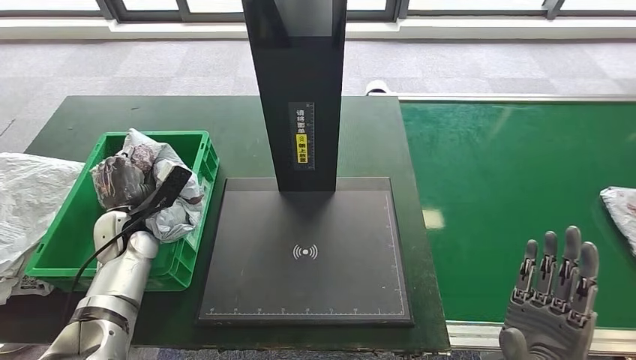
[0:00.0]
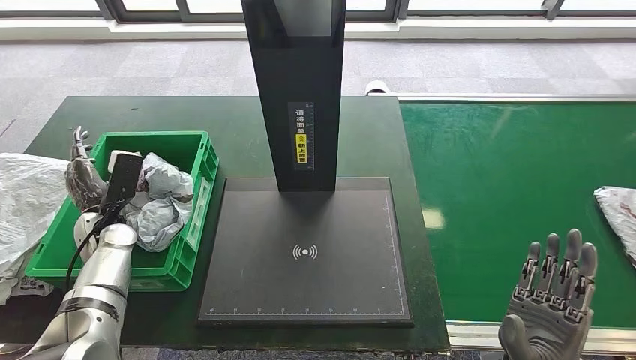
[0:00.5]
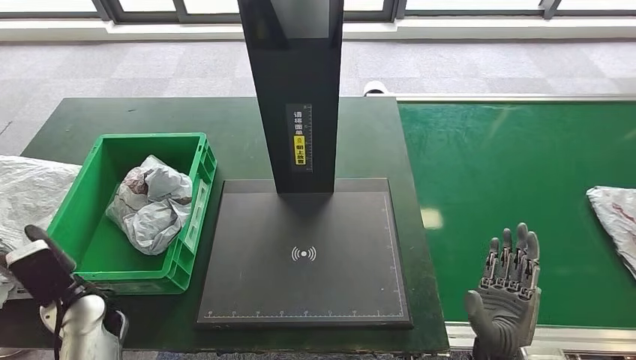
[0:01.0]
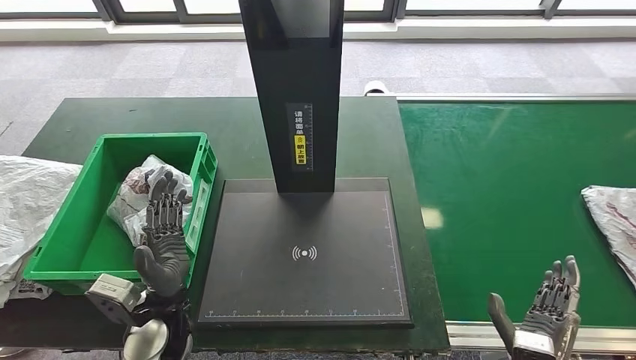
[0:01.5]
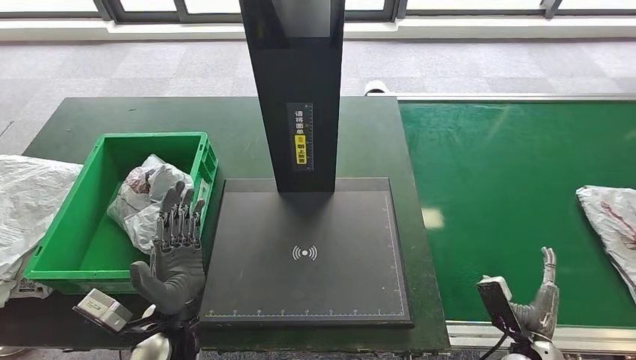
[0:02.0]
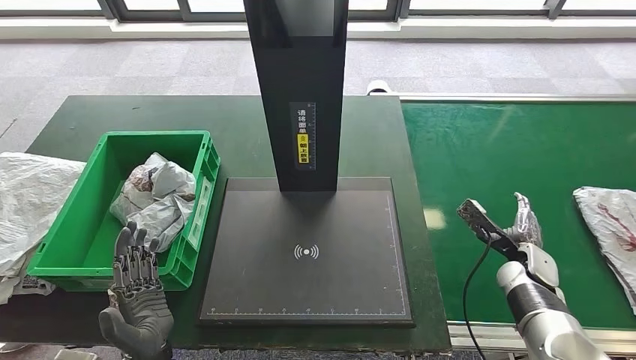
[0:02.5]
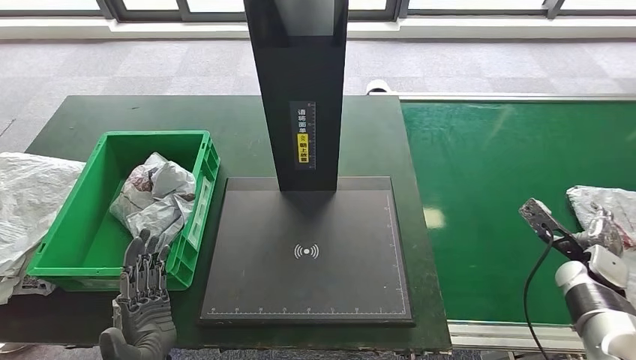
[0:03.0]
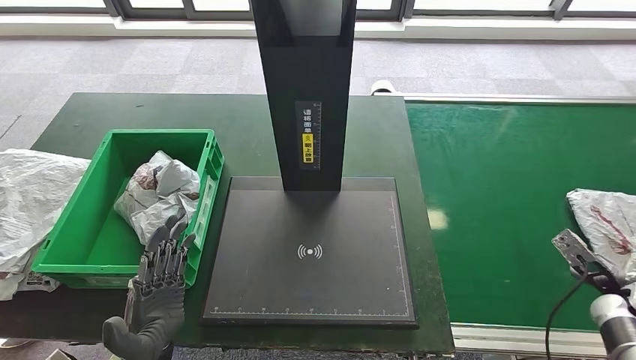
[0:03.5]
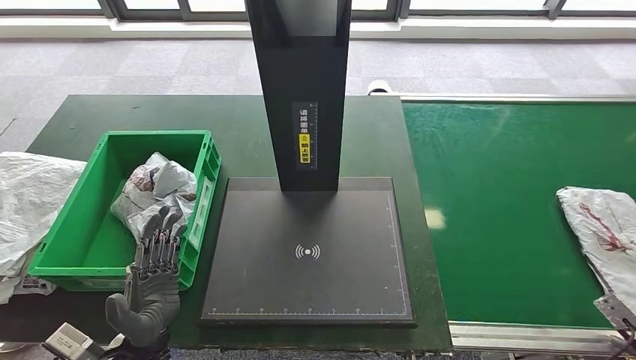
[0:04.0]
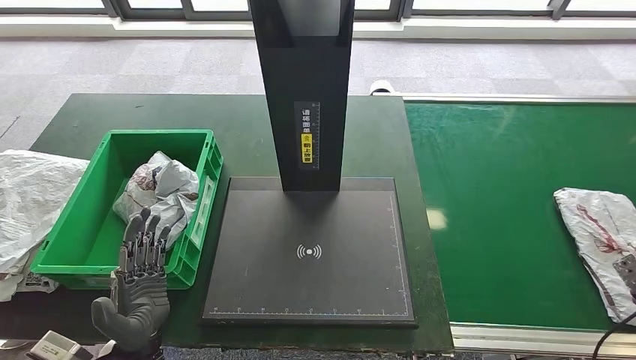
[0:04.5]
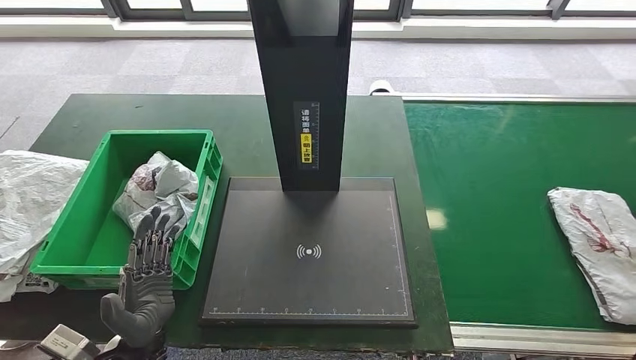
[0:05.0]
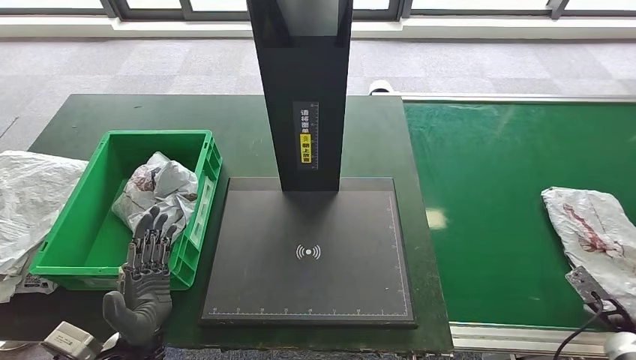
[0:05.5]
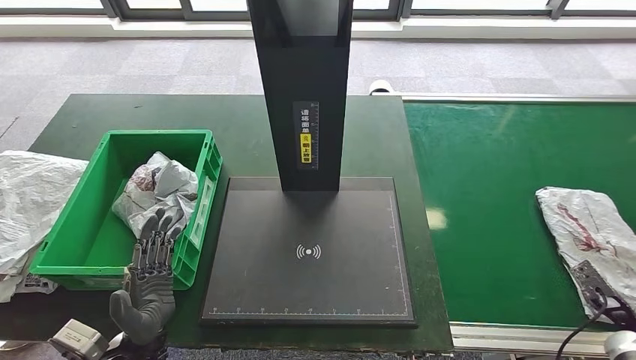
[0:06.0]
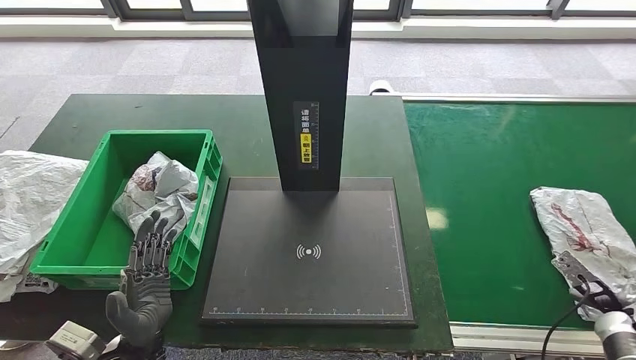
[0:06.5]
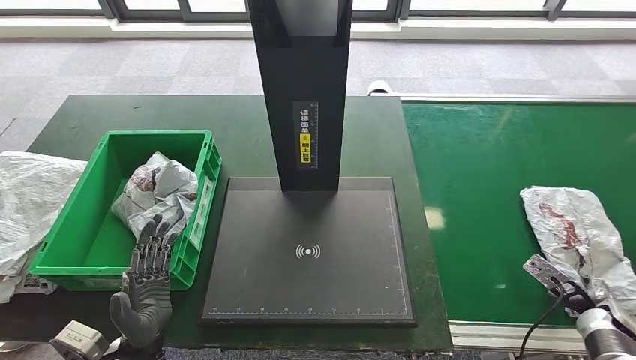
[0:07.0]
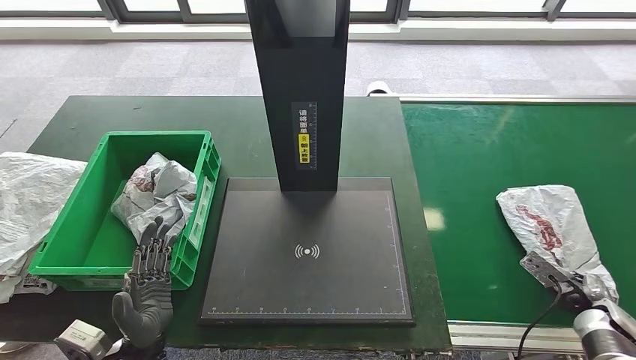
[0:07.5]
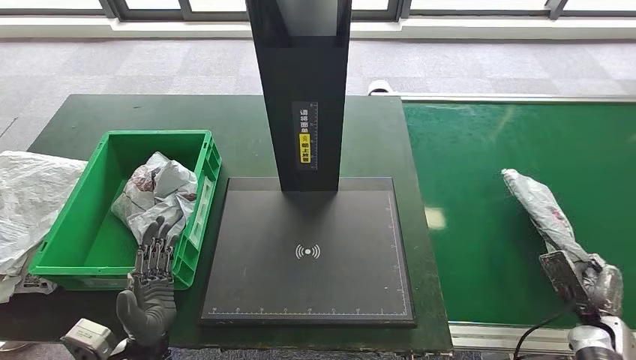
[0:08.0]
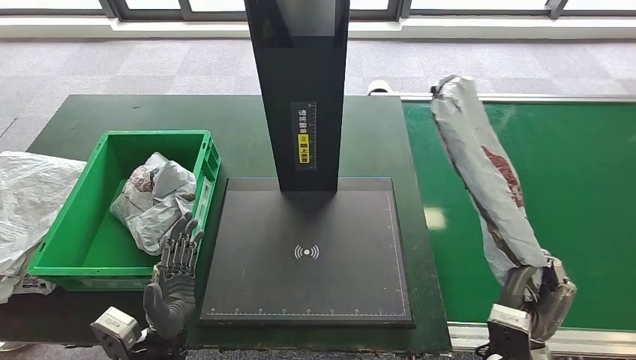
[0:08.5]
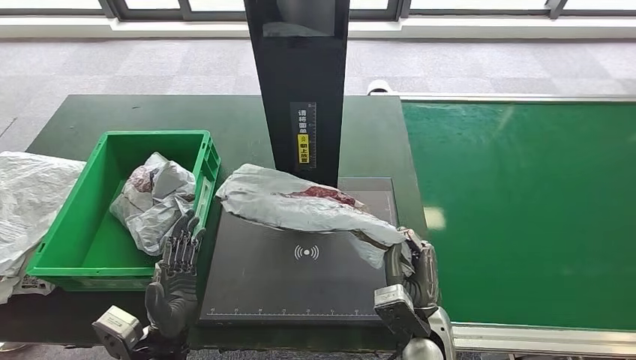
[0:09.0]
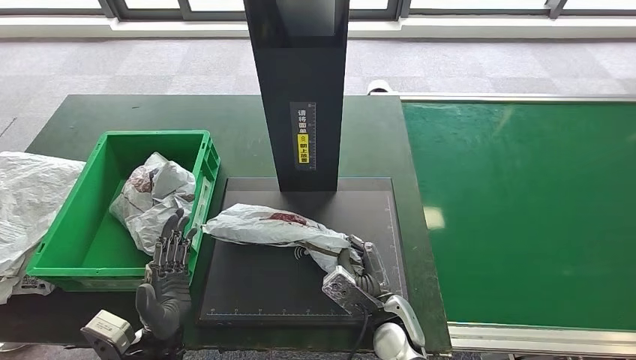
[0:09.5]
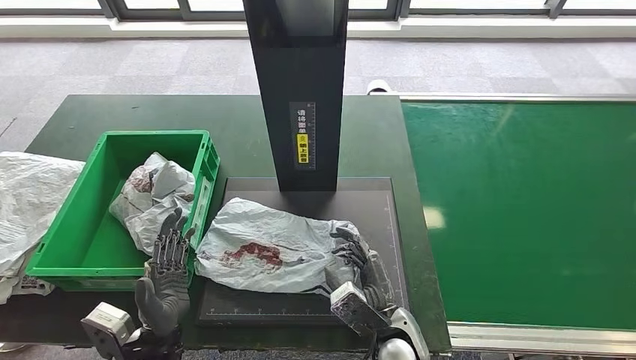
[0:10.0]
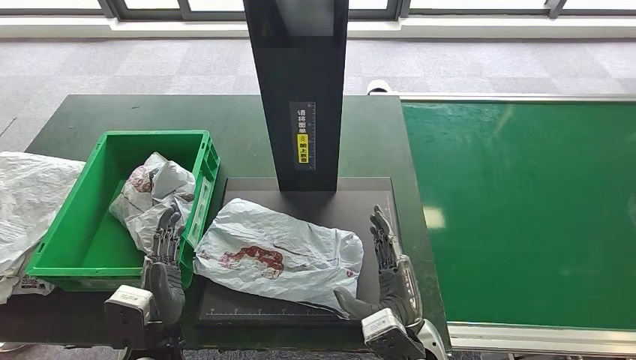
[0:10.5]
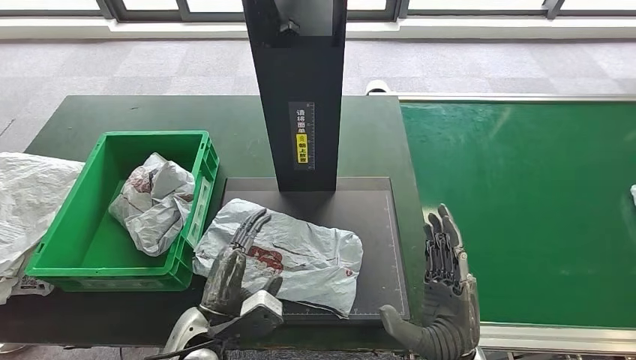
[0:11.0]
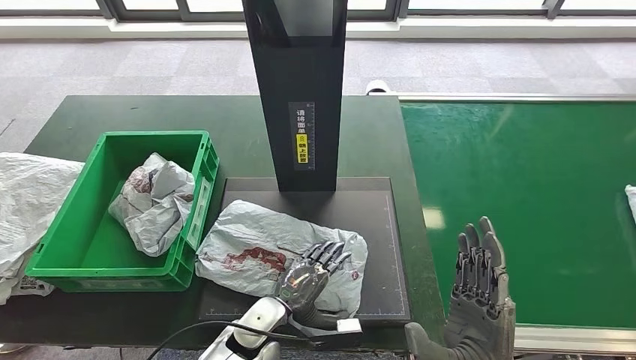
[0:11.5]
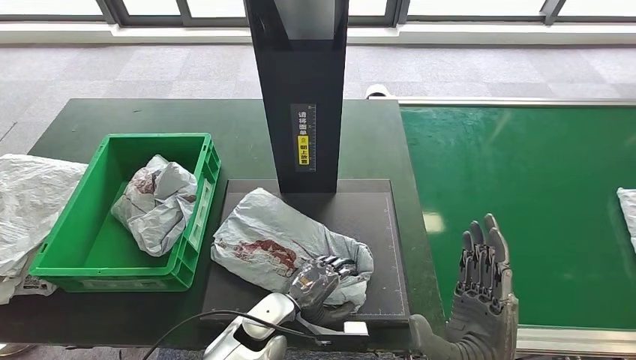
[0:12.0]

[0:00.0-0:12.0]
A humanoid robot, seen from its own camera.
Step, 0:00.0 to 0:01.5: Put the parcel inside the courier box.
Step, 0:02.0 to 0:09.0: Pick up the parcel from the conveyor belt.
Step, 0:09.5 to 0:11.5: Place the parcel onto the inbound machine.
0:00.0 to 0:02.0: The right hand travels downward and to the right by about 20 cm. The left hand heads backward and to the right, covering approximately 20 cm.
0:02.0 to 0:04.0: The right hand moves to the right, roughly 20 cm.
0:04.0 to 0:06.0: The right hand changes place by some 5 cm.
0:06.0 to 0:08.0: The right hand shifts roughly 5 cm to the left.

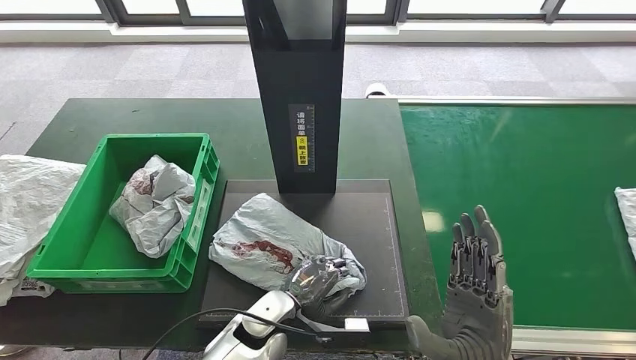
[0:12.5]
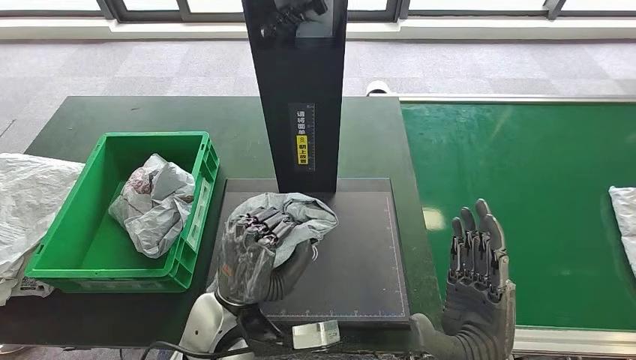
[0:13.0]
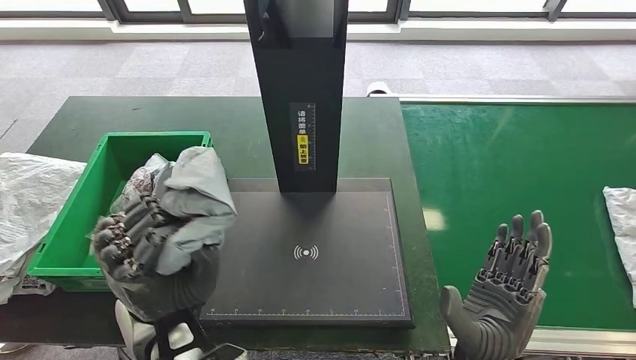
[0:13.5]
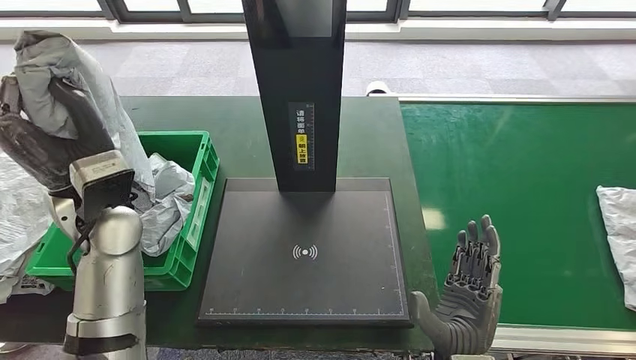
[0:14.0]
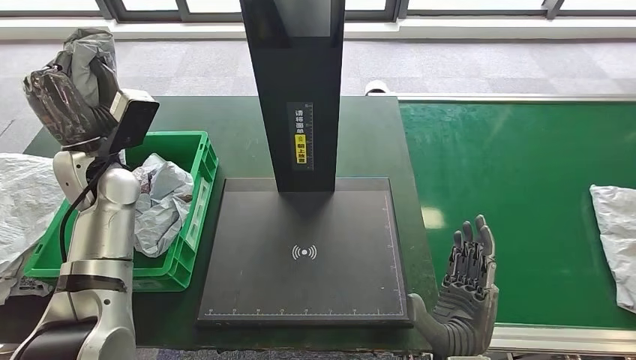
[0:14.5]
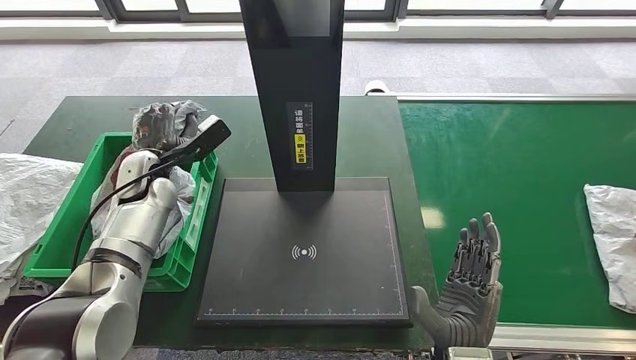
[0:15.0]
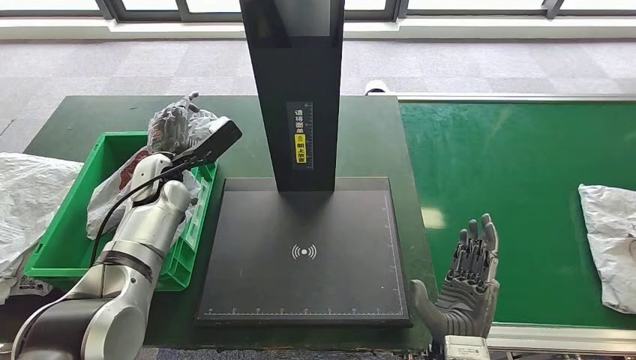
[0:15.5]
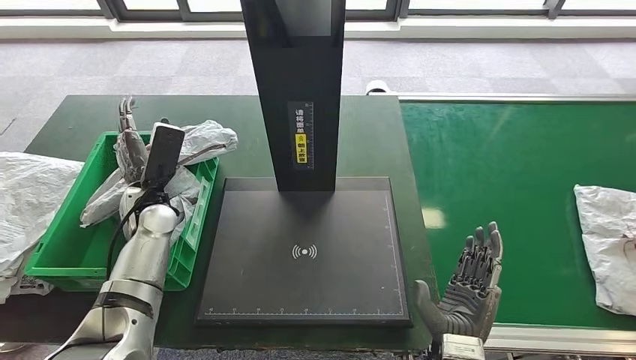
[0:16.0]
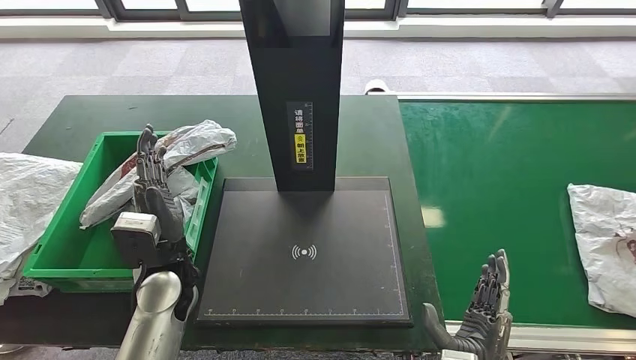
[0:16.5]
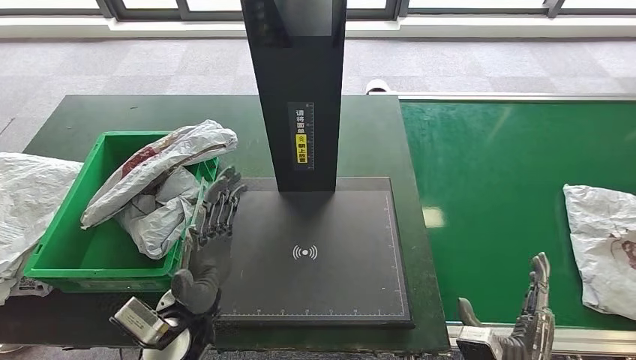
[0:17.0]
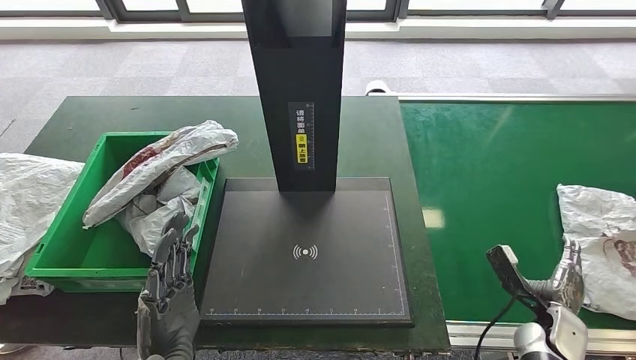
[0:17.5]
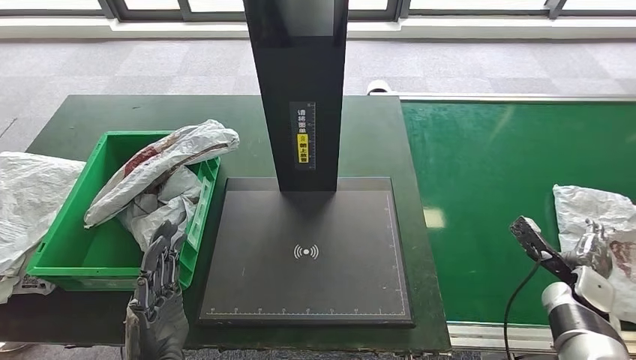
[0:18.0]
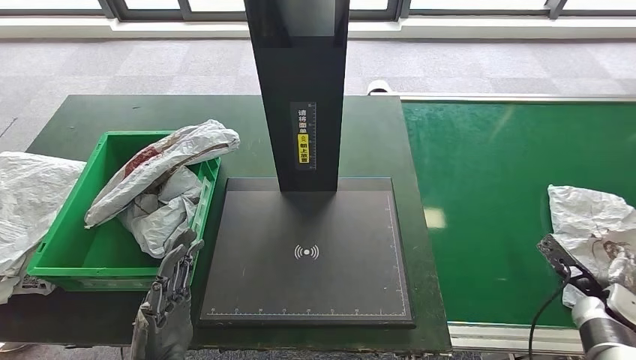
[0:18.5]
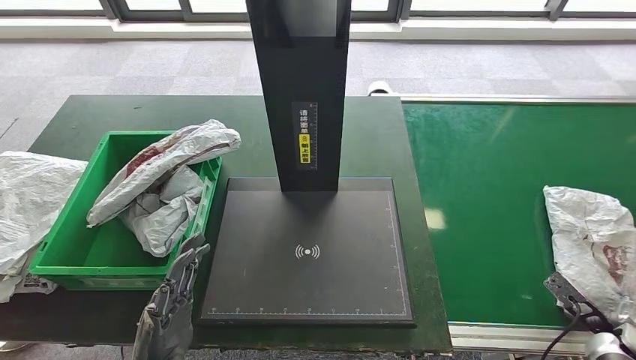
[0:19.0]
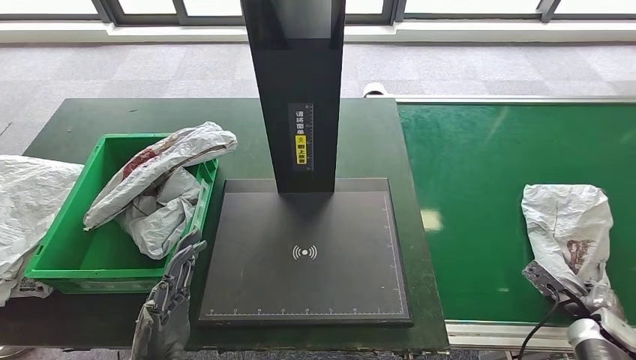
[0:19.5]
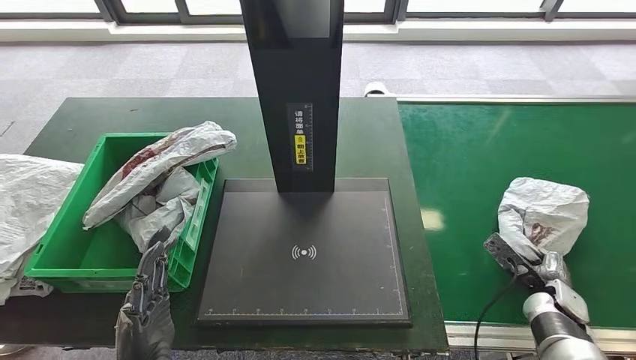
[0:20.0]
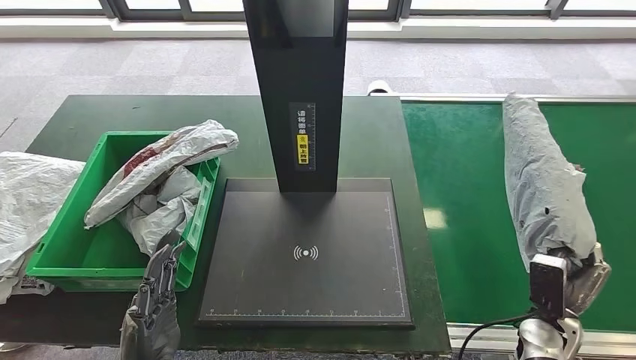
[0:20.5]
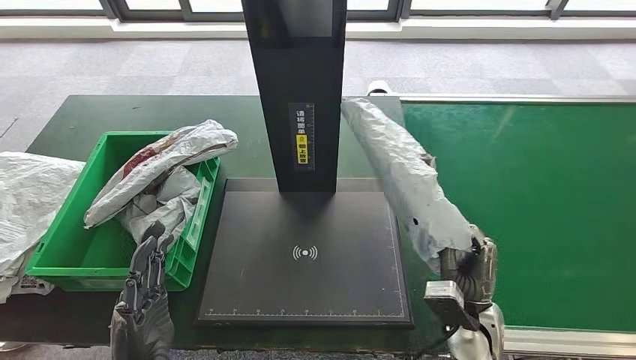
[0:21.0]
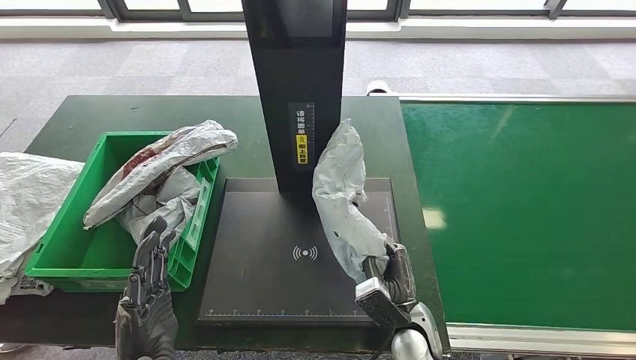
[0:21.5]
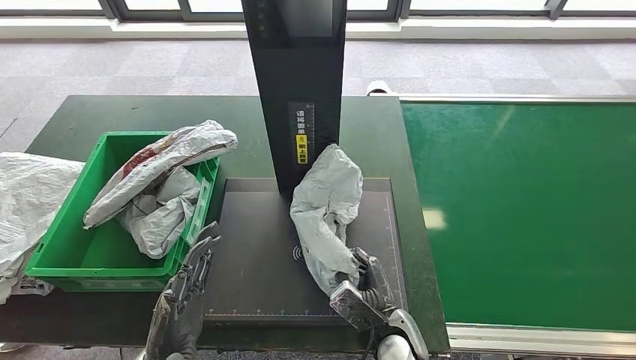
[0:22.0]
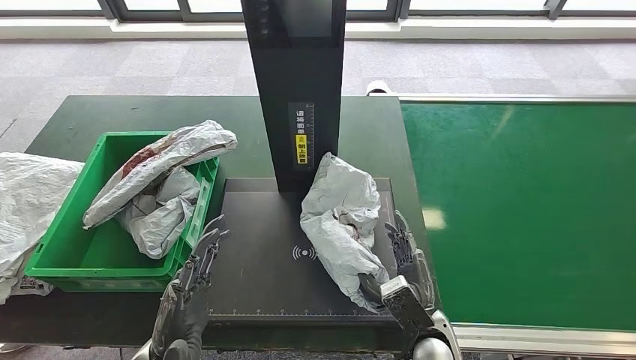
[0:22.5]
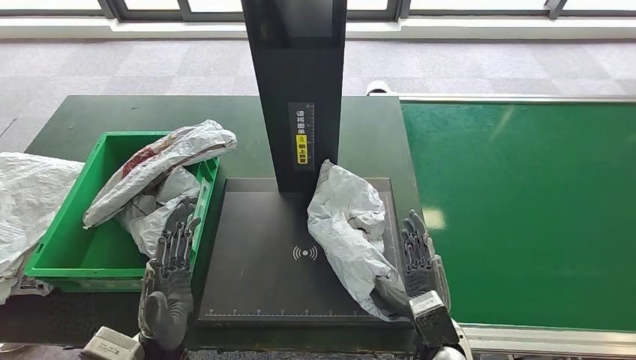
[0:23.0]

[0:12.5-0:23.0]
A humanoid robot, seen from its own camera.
Step, 0:12.5 to 0:14.0: Pick up the parcel from the inbound machine.
Step, 0:14.5 to 0:17.0: Place the parcel into the delivery box.
Step, 0:17.5 to 0:20.5: Pick up the parcel from the conveyor belt.
0:19.0 to 0:21.0: The right hand shifts some 25 cm to the left.
0:21.0 to 0:23.0: The right hand is displaced to the left by roughly 5 cm.
